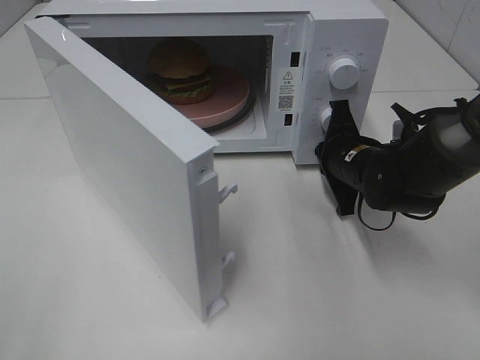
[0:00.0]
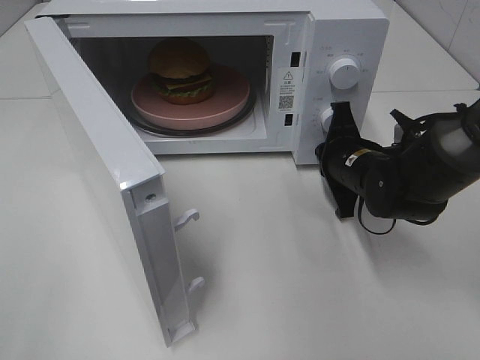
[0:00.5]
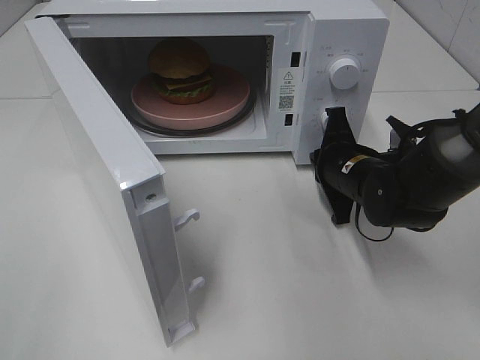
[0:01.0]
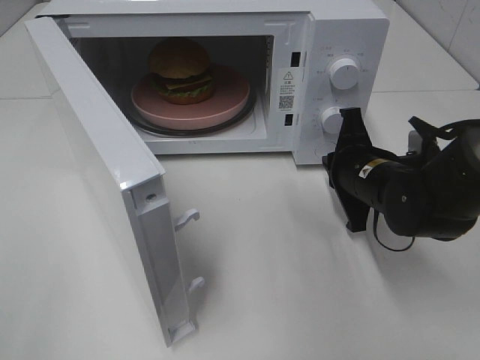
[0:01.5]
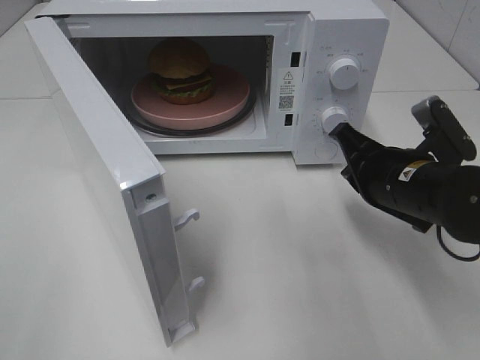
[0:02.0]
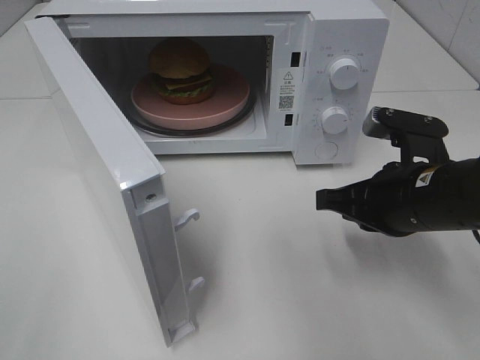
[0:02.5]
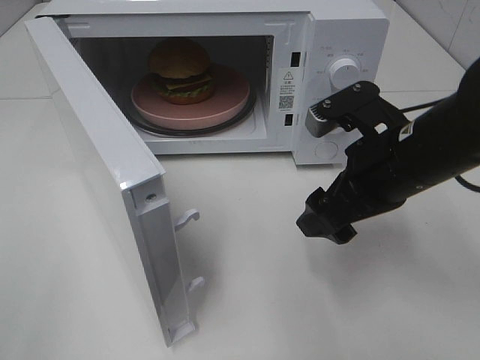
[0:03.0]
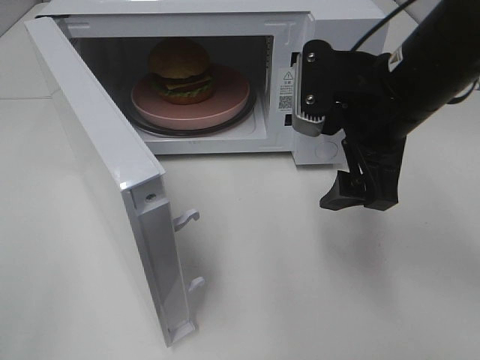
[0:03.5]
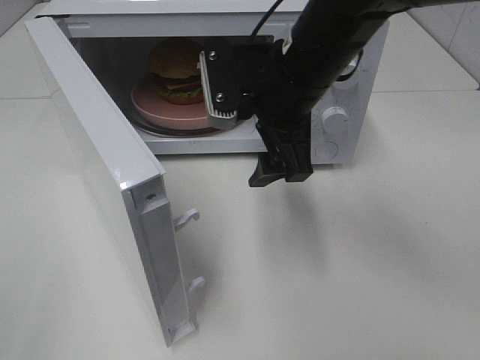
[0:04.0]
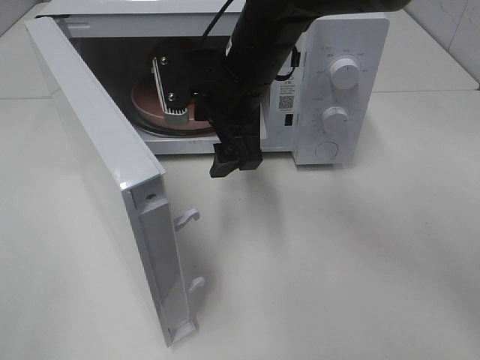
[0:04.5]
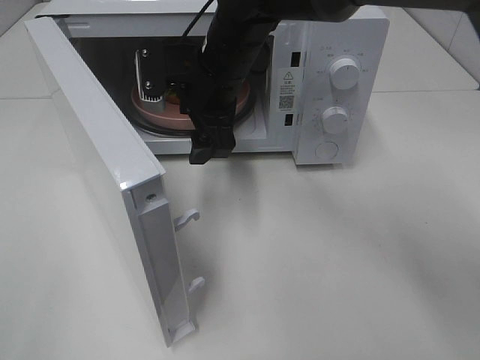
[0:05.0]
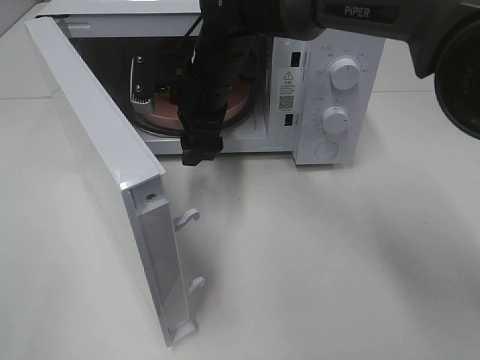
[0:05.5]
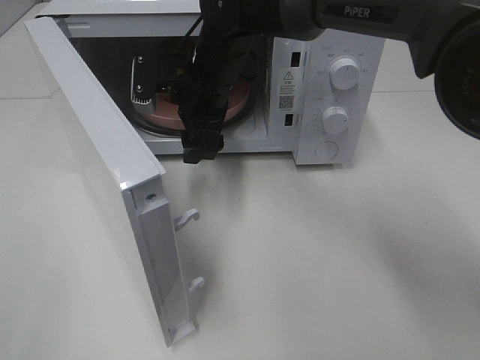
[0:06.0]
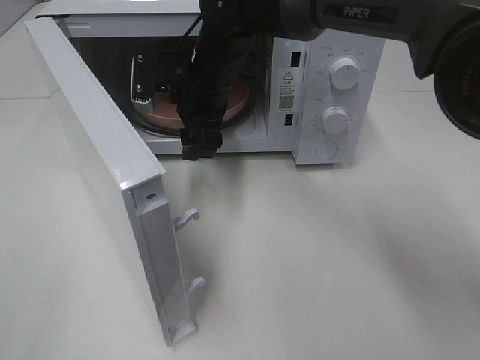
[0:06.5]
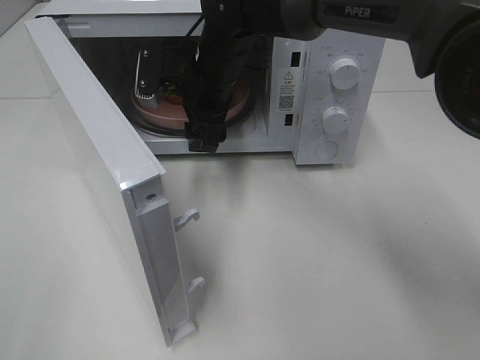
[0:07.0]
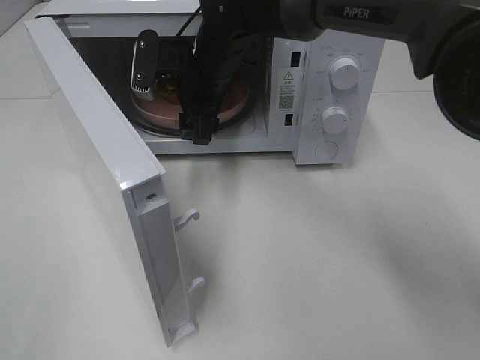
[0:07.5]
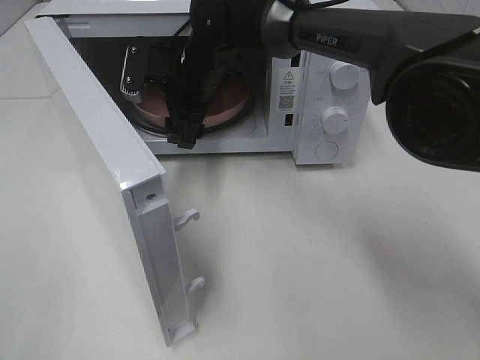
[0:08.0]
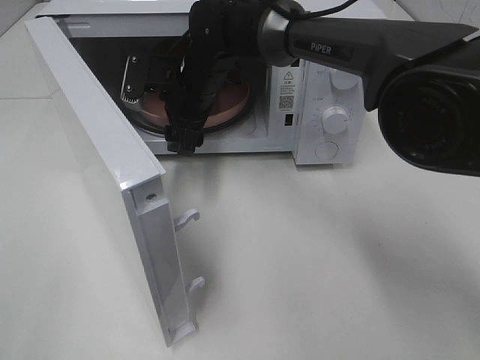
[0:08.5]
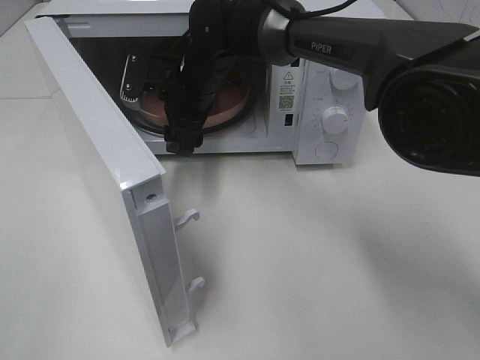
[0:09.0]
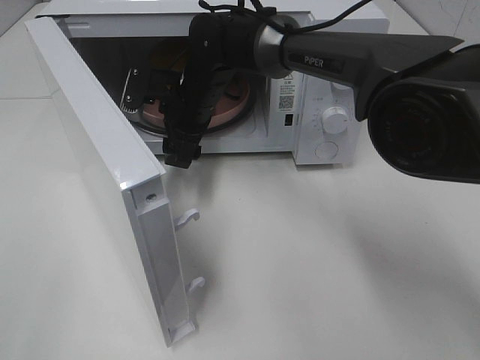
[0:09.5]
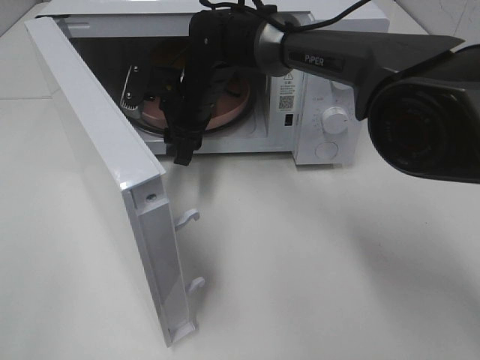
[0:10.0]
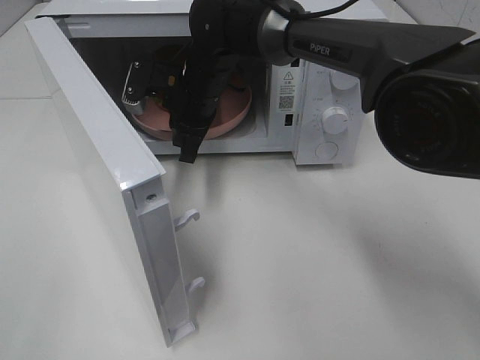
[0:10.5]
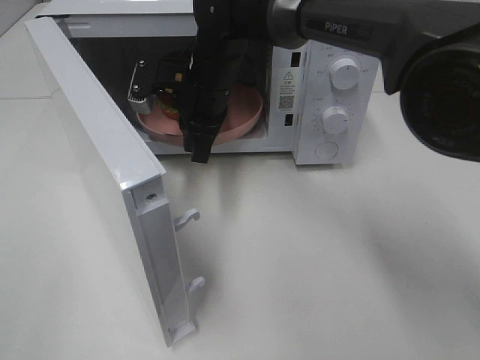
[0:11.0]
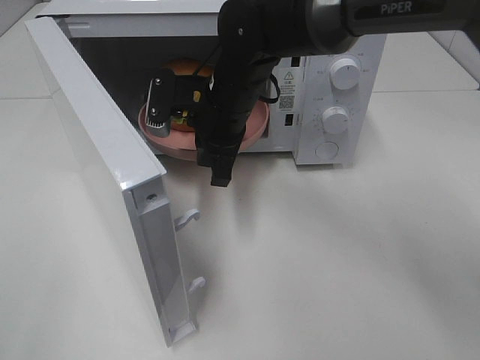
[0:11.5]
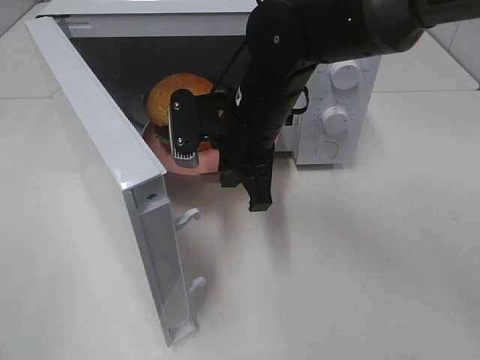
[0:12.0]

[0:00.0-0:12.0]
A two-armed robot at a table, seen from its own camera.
Task of the whole recording: Heat the burger.
Step, 0:01.5 to 0:10.5: Right hand: grab the plate with the hamburger.
0:00.0 to 0:02.0: The right gripper travels backward by roughly 10 cm.
0:02.0 to 0:04.0: The right gripper travels to the left and upward by approximately 15 cm, and opens its fingers.
0:04.0 to 0:06.0: The right gripper goes about 15 cm forward, to the left and downward.
0:06.0 to 0:10.0: The grippers move only a little.
0:10.0 to 0:12.0: The right gripper shifts roughly 15 cm backward and to the right, and closes up.

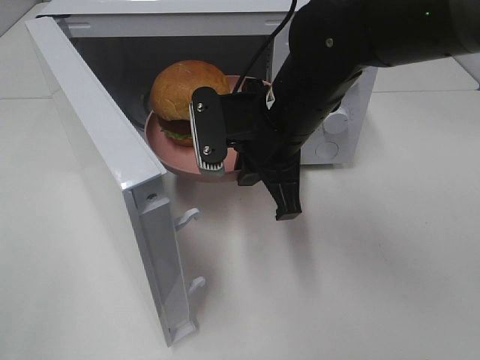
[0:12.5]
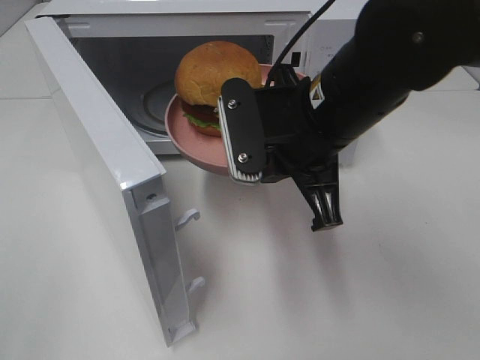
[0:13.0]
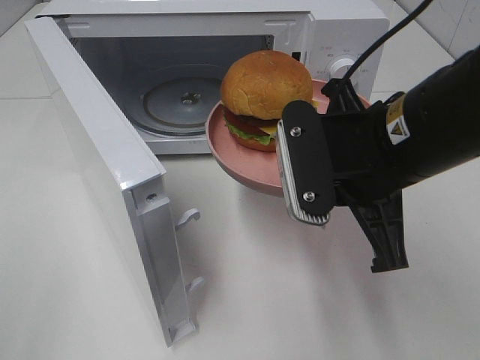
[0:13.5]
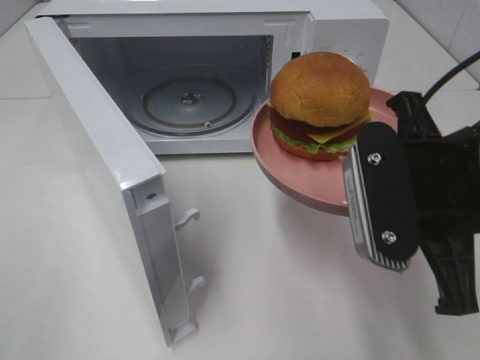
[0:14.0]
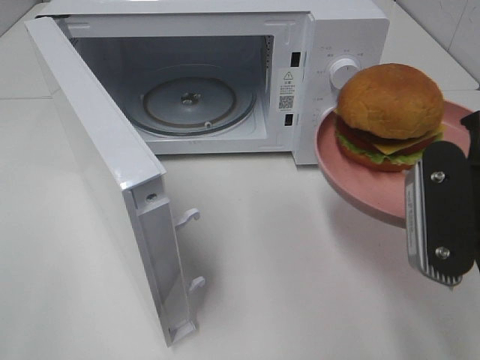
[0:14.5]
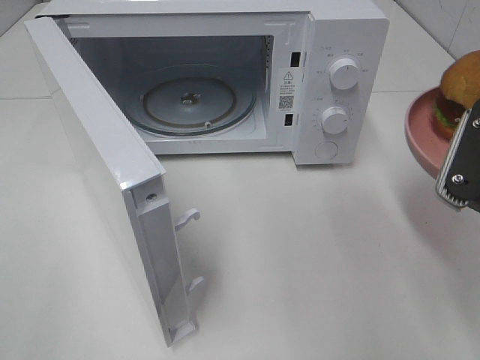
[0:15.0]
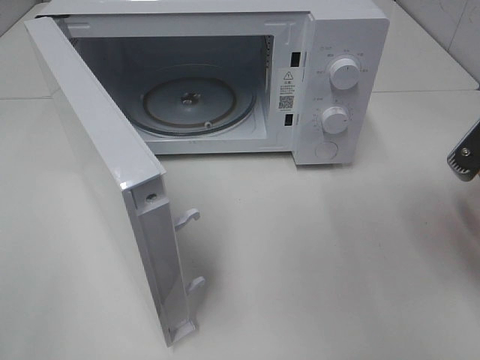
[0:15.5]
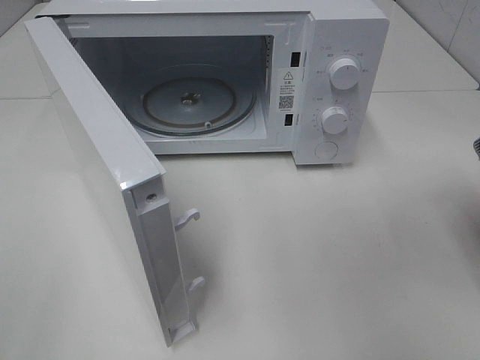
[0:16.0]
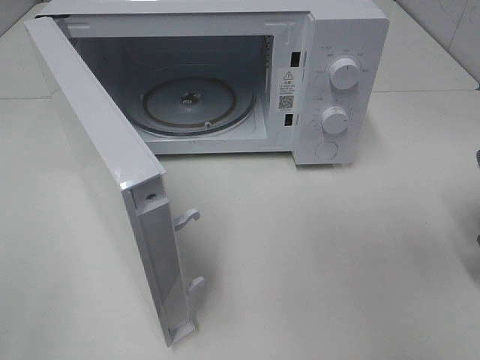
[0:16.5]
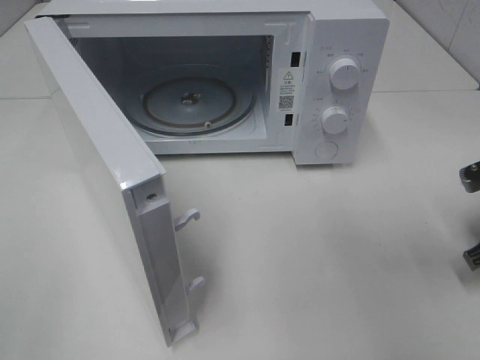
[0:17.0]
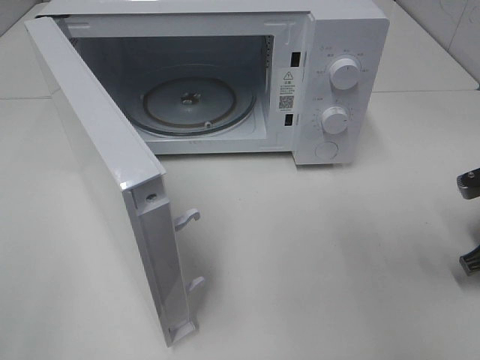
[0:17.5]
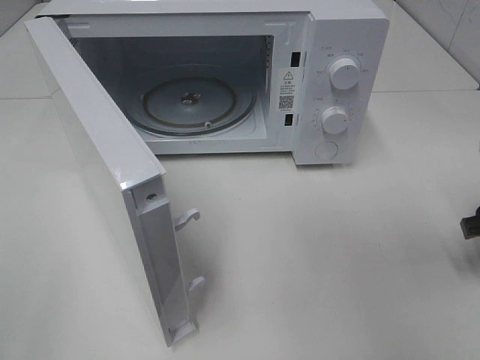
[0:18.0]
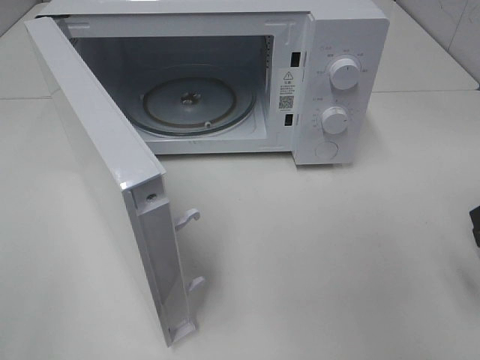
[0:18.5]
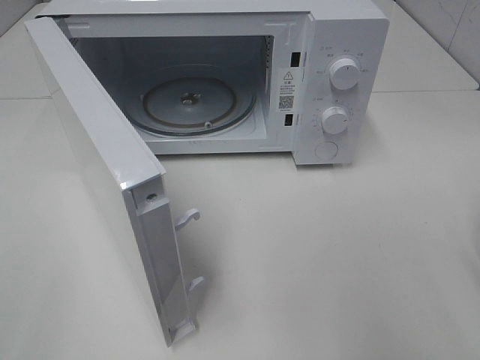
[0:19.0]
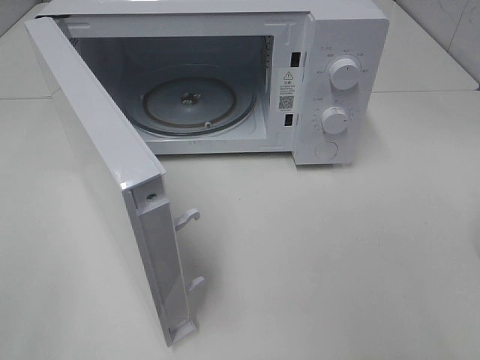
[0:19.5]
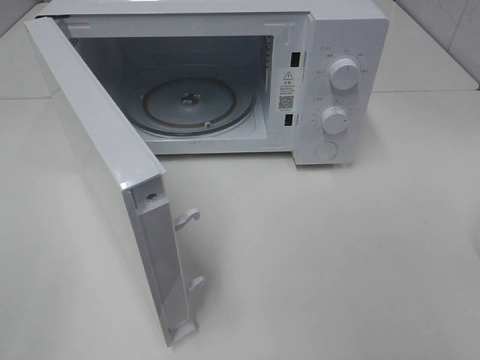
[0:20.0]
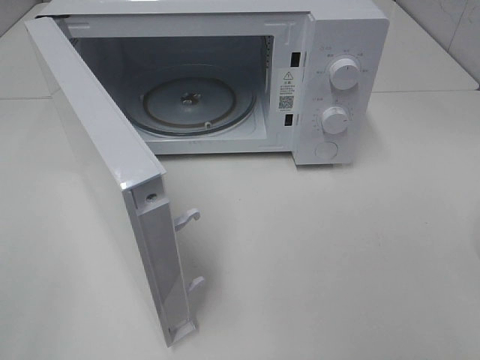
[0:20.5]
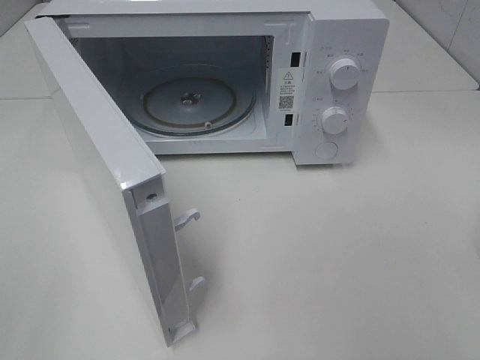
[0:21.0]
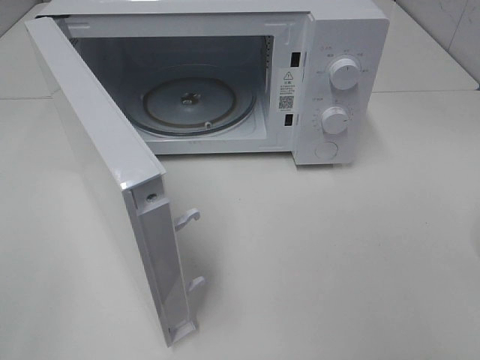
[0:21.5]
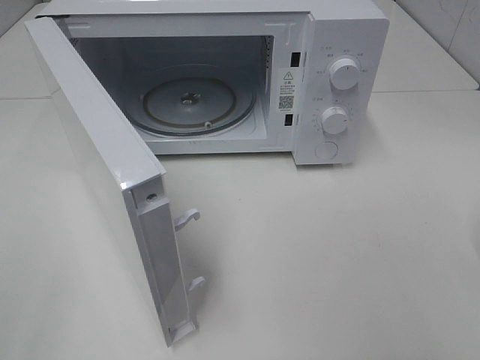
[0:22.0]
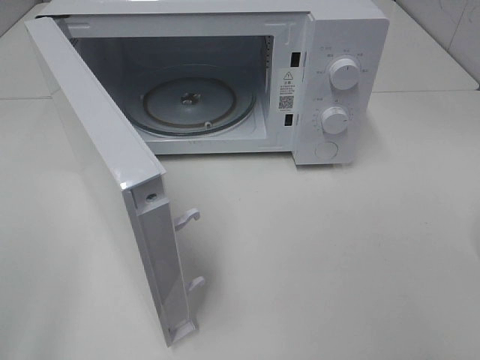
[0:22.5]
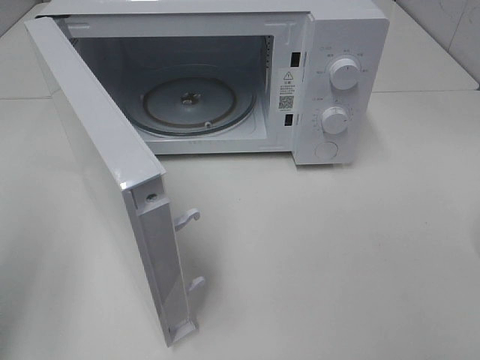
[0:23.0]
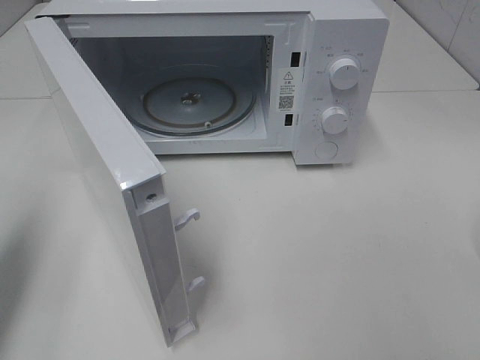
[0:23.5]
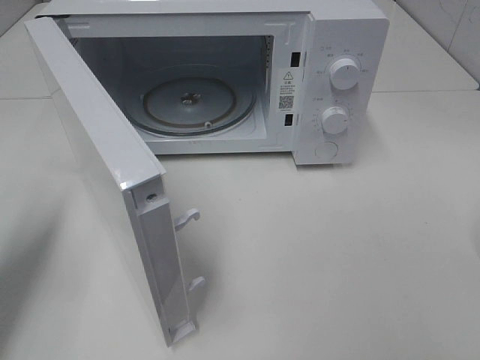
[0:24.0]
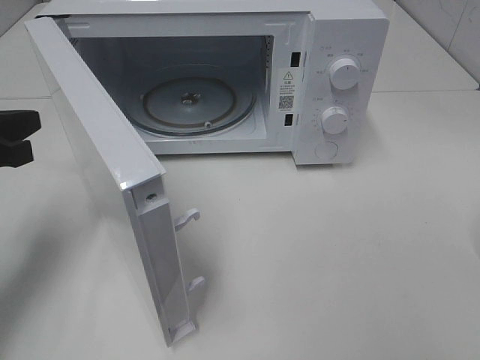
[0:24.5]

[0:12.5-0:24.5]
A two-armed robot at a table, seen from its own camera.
Task of the whole recording: Heat the burger.
Step, 0:12.5 to 0:18.0: Right hand: place the plate on the table.
0:12.5 to 0:14.5: The right gripper travels backward and to the right by some 20 cm.
0:14.5 to 0:16.5: The right gripper heads to the right, downward and forward, covering approximately 15 cm.
0:22.5 to 0:24.5: The left gripper moves forward and downward, roughly 25 cm, and closes its fingers.

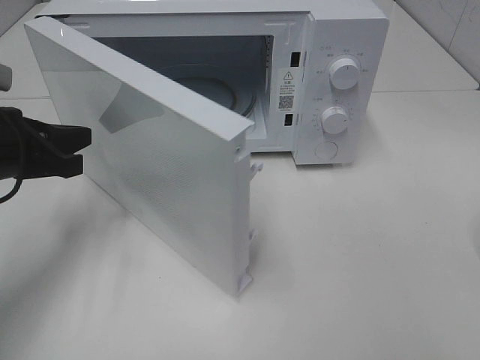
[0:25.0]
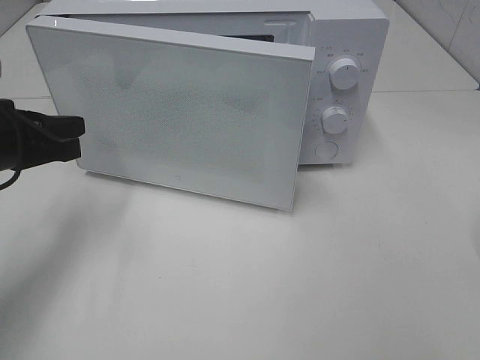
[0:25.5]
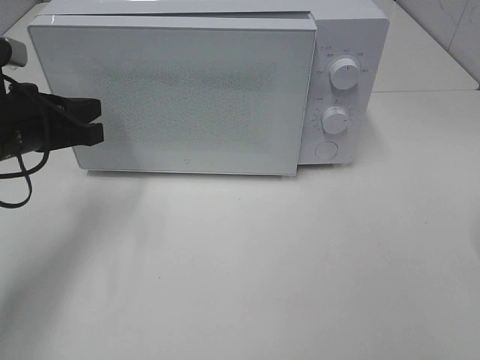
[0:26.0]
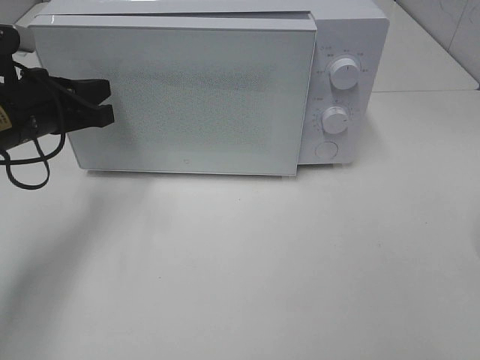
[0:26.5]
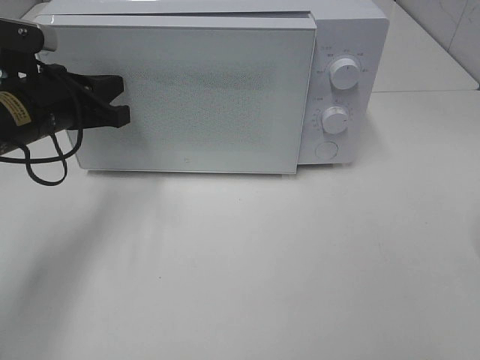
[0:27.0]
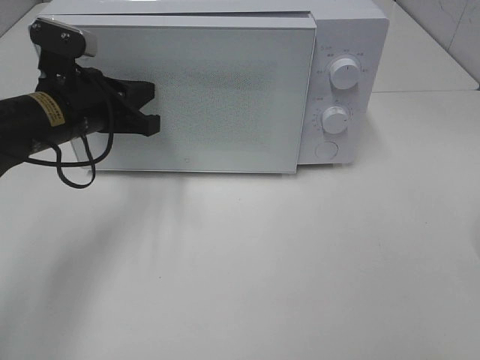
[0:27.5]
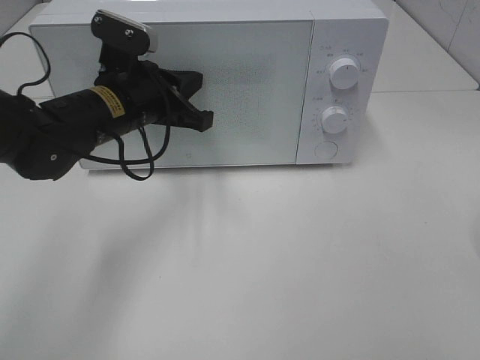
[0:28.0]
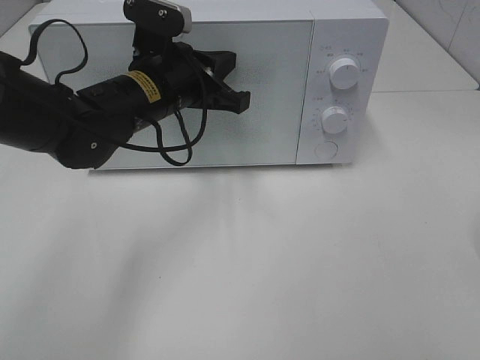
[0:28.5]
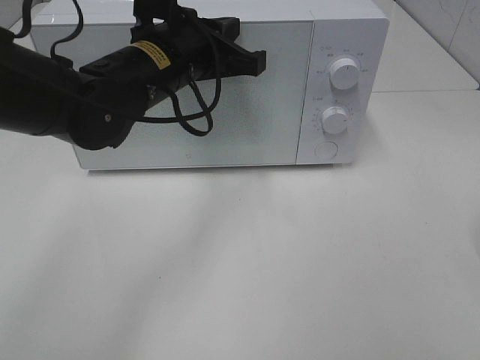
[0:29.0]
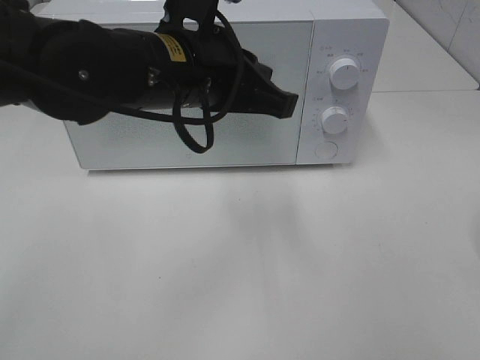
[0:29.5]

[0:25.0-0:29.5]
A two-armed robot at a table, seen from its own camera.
Task of the whole recording: Heat the burger.
0:25.0 to 0:27.0: The left gripper heads forward, covering about 5 cm.
0:27.0 to 0:29.5: The left gripper shifts some 20 cm to the right and upward.
